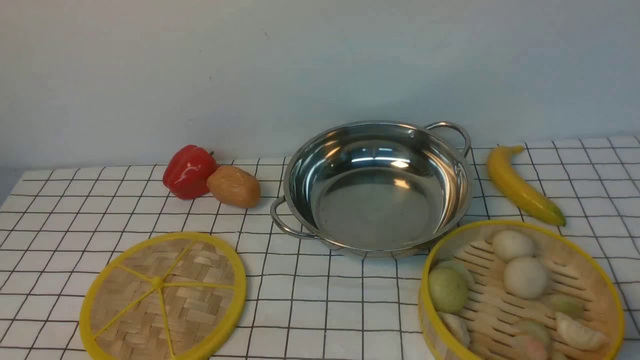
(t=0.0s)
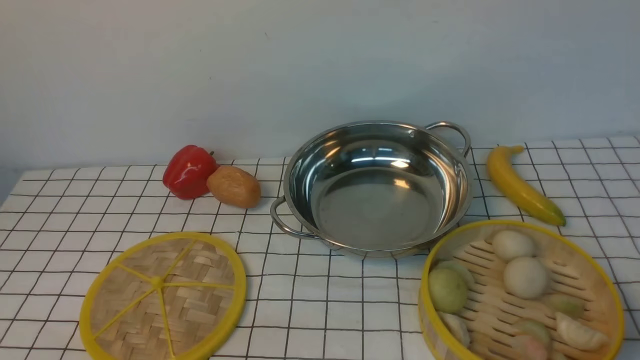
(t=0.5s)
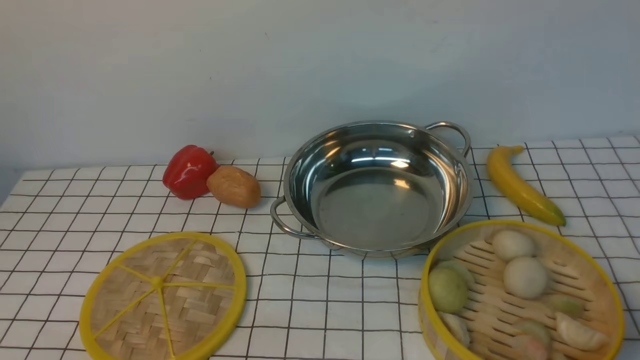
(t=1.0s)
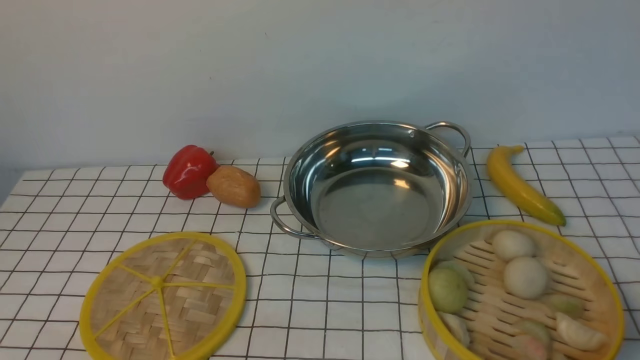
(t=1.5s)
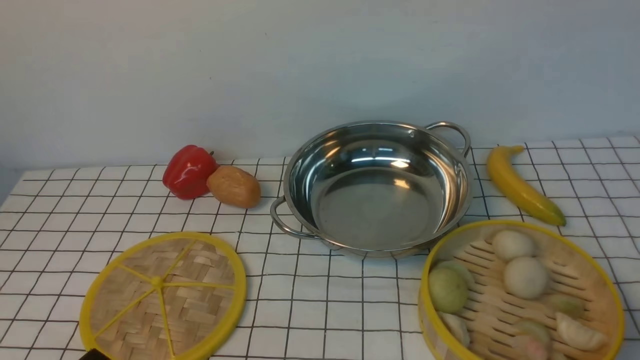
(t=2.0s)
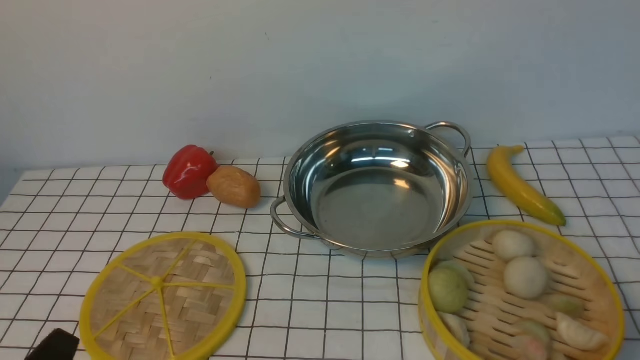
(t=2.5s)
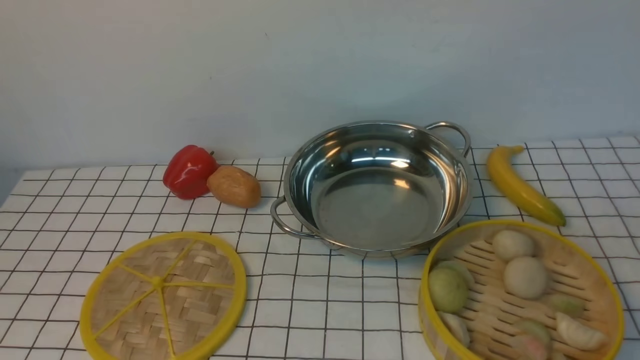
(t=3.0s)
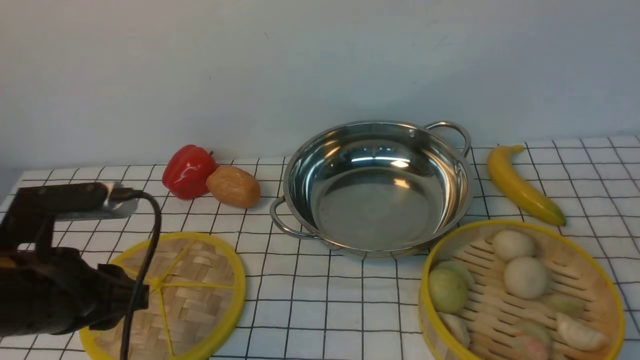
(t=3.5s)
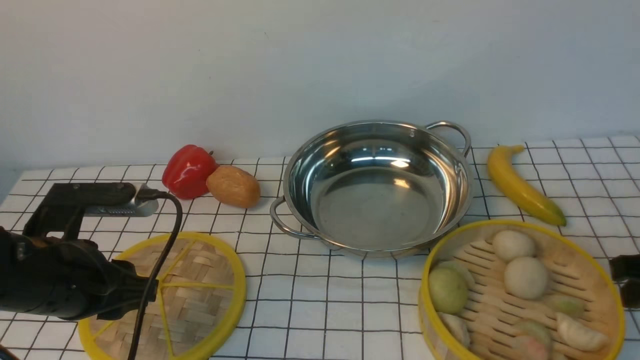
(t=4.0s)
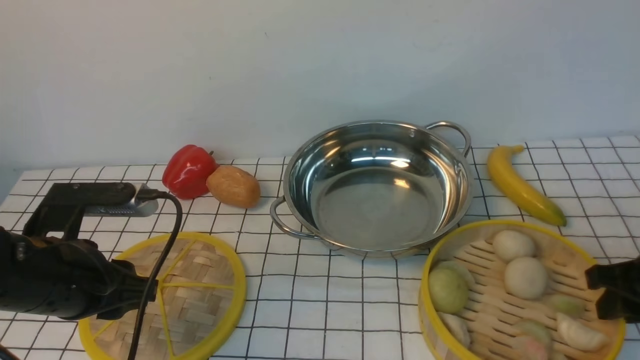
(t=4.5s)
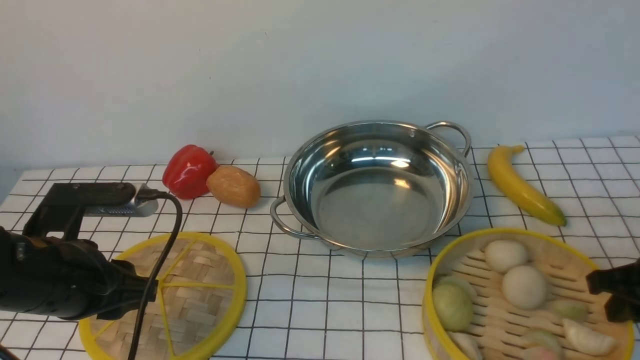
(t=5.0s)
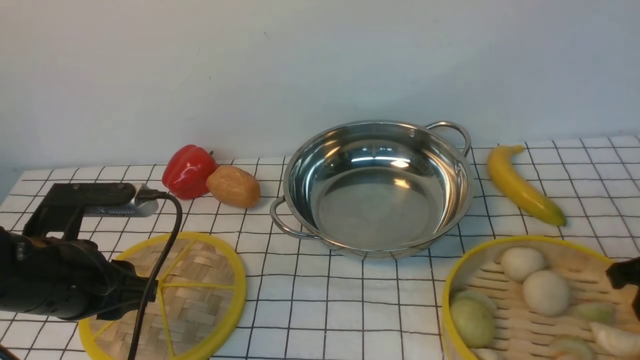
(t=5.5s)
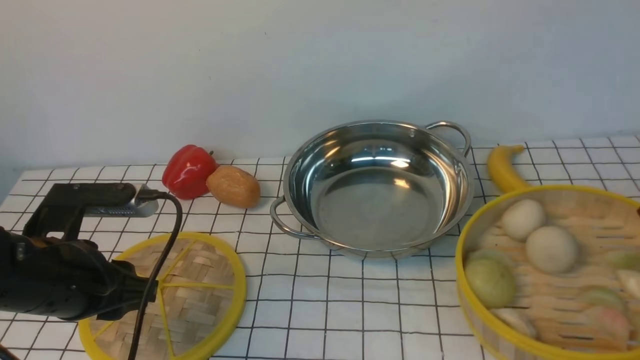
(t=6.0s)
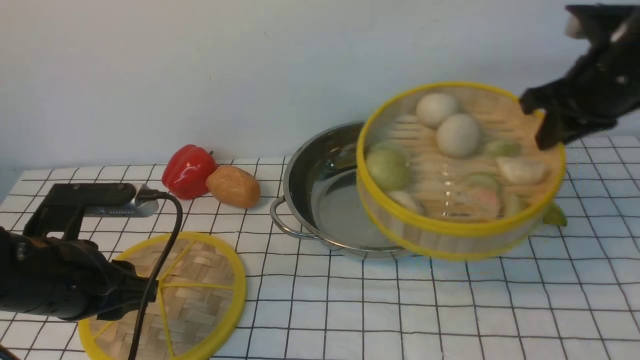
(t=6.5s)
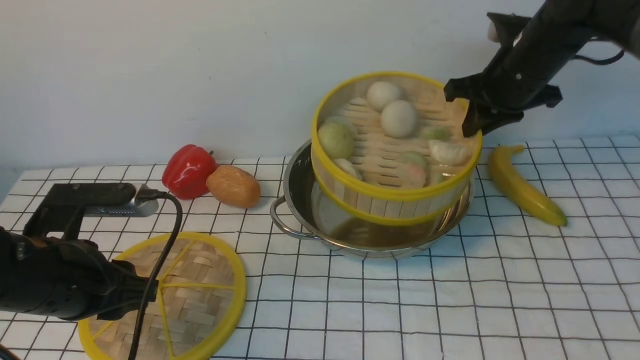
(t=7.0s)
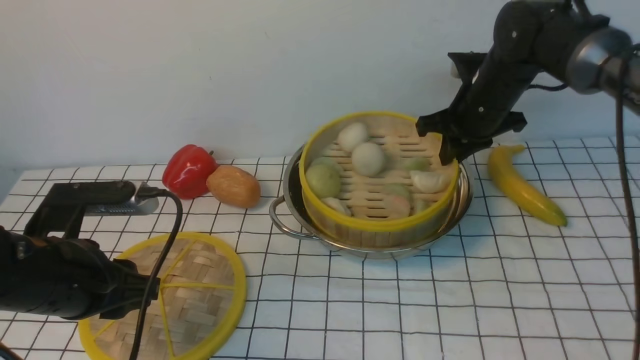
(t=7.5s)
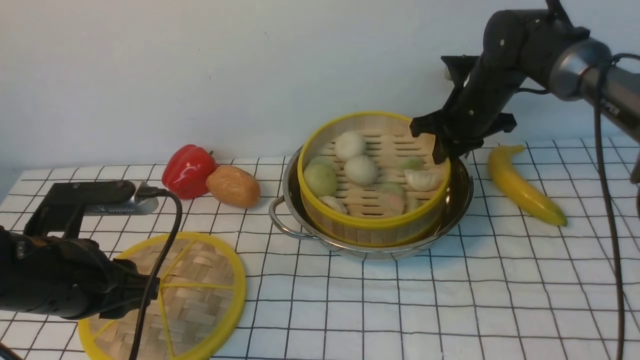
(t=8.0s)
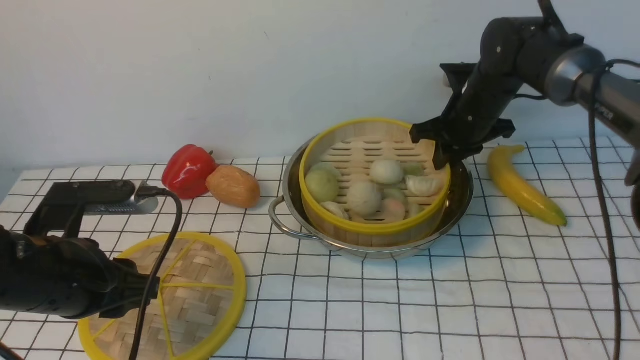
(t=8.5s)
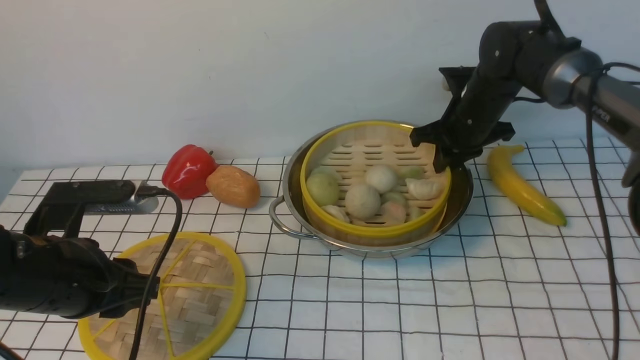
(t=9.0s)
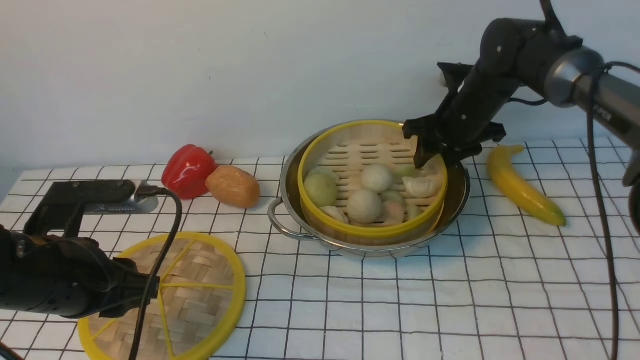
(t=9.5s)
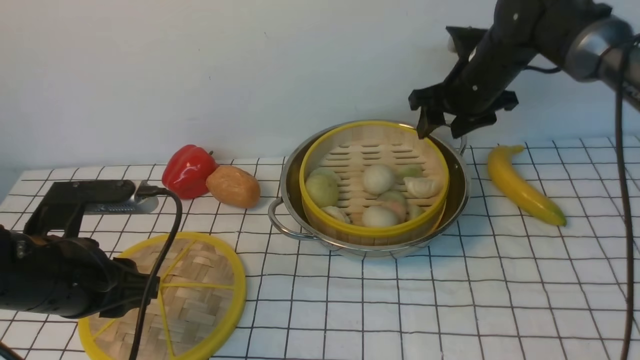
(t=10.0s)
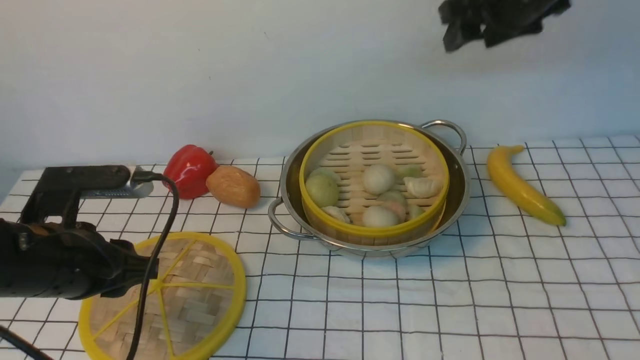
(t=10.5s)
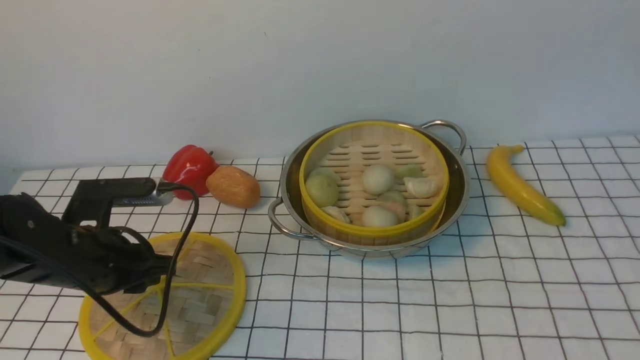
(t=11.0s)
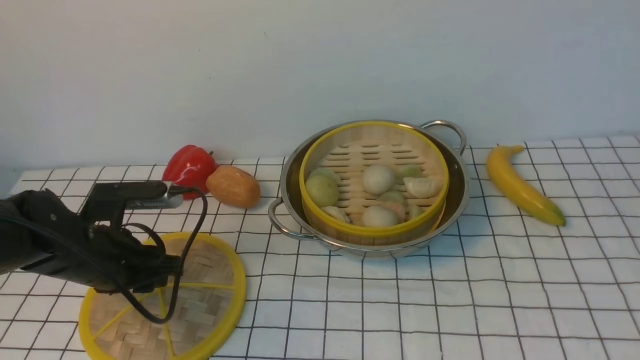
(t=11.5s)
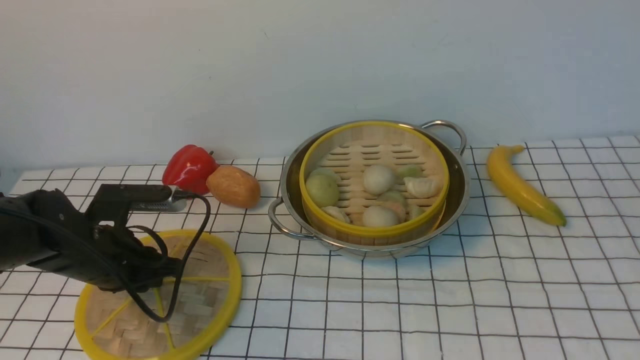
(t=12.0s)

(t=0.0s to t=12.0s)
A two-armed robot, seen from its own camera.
Task of the whole recording: place the steamer in the pot on the white tablecloth, and put the lid on the steamer.
Step, t=0.0s - t=5.5s: use the right arm to lift the steamer closest to it.
Step, t=6.0s - t=10.0s: use the right arm to put the steamer into the iron steamer pot in the middle.
t=2.0s - t=4.0s: Both grippers travel together forward, some 15 cm.
t=4.0s - t=6.0s: The right gripper goes some 5 cm upward.
t=6.0s - t=8.0s: The right gripper shifts approximately 25 cm forward and to the left.
t=8.0s - t=10.0s: The right gripper opens.
t=10.0s - t=12.0s: The right gripper shifts roughly 50 cm backward and upward, and closes its fingers, while the left gripper goes approximately 10 cm forward and downward.

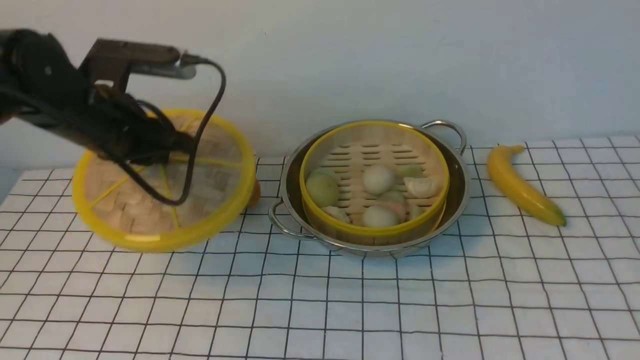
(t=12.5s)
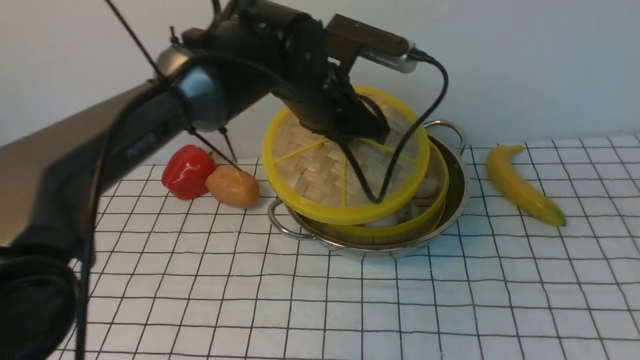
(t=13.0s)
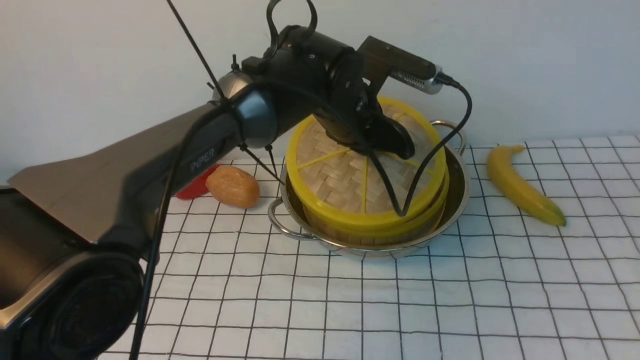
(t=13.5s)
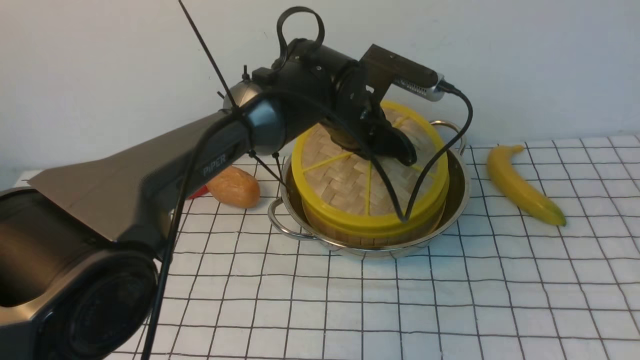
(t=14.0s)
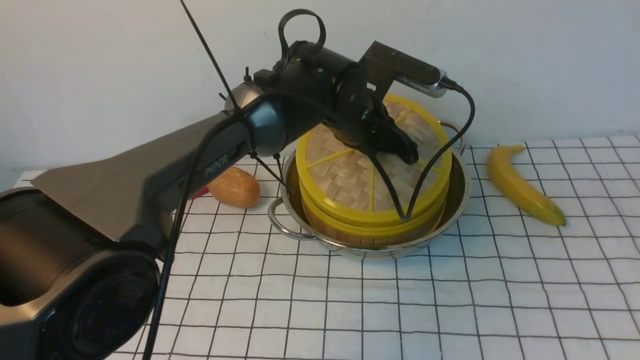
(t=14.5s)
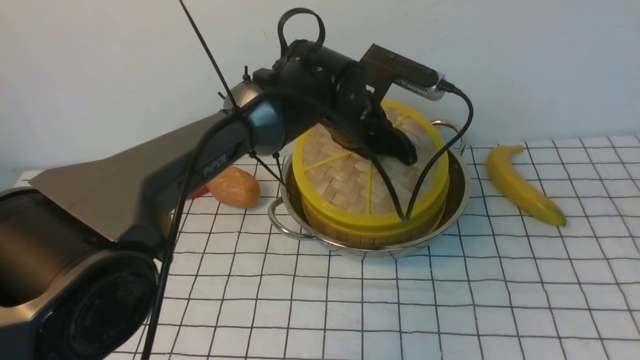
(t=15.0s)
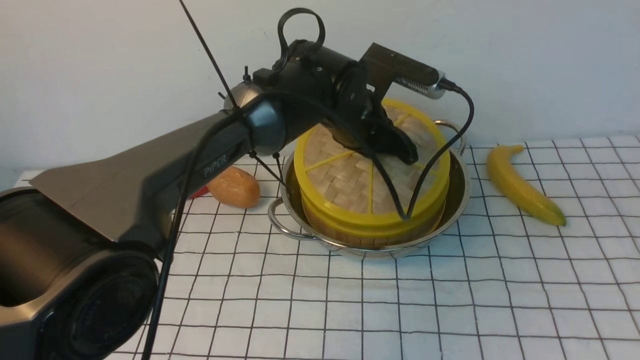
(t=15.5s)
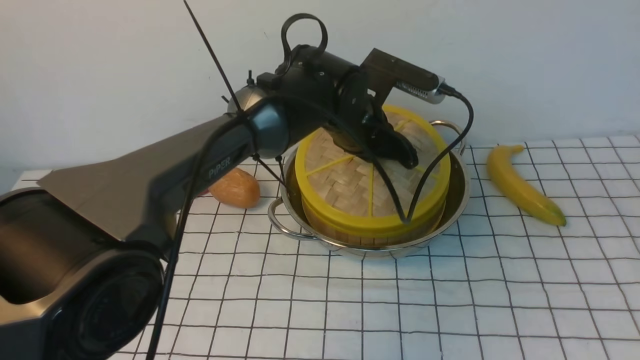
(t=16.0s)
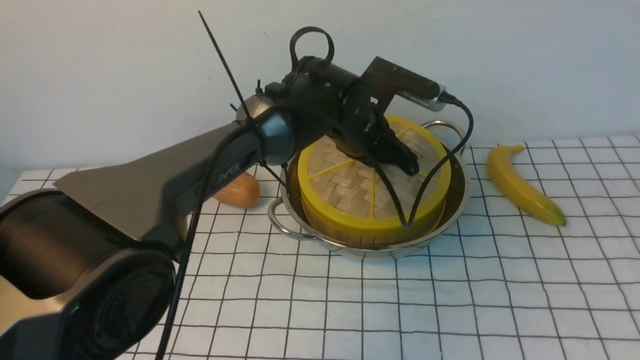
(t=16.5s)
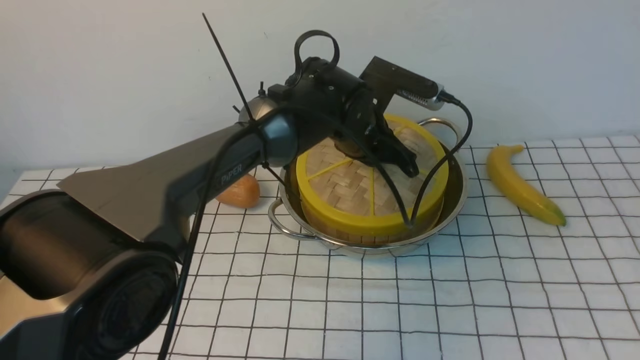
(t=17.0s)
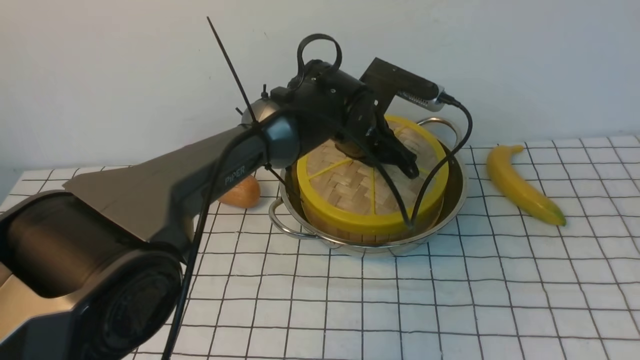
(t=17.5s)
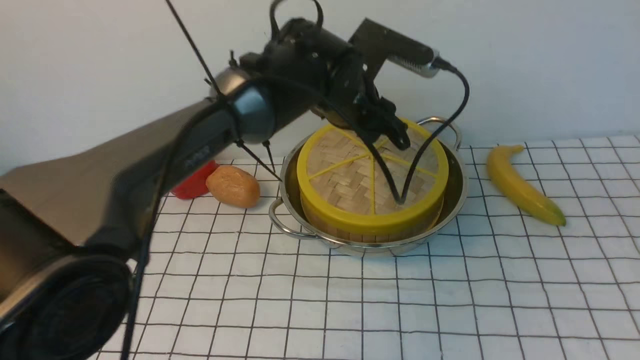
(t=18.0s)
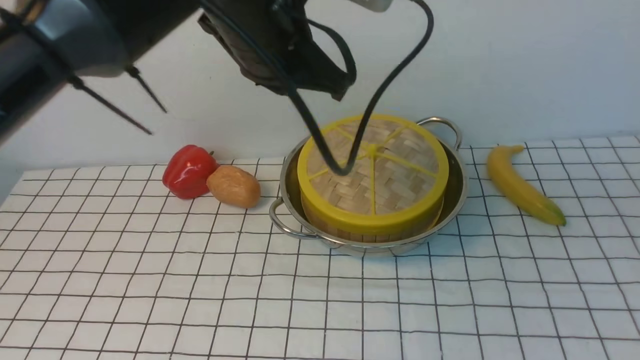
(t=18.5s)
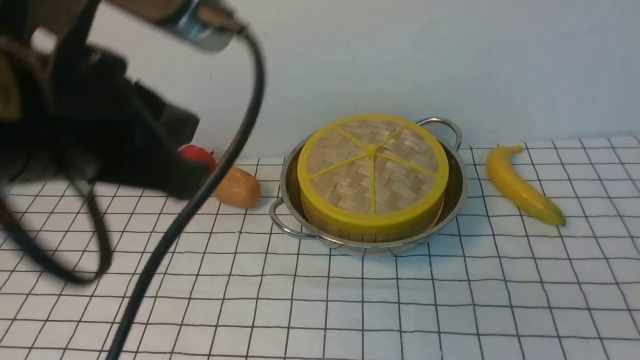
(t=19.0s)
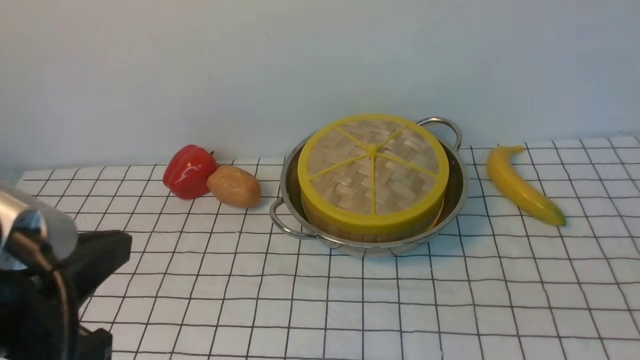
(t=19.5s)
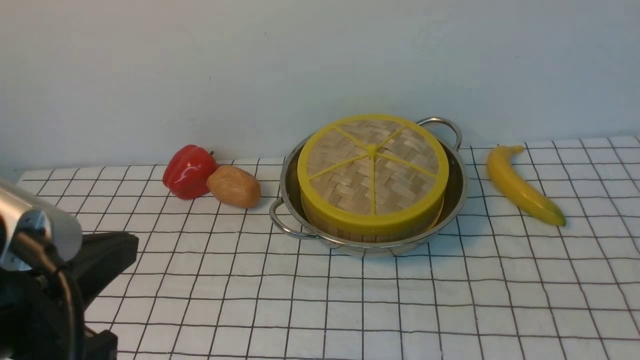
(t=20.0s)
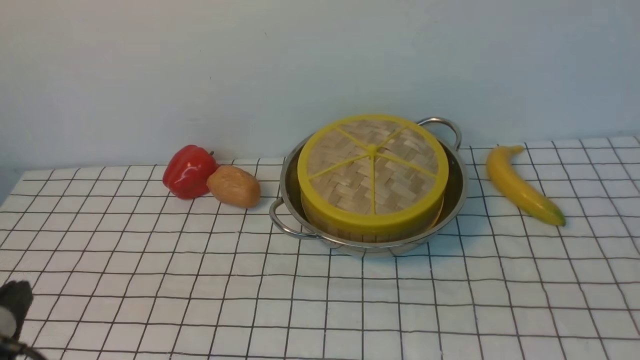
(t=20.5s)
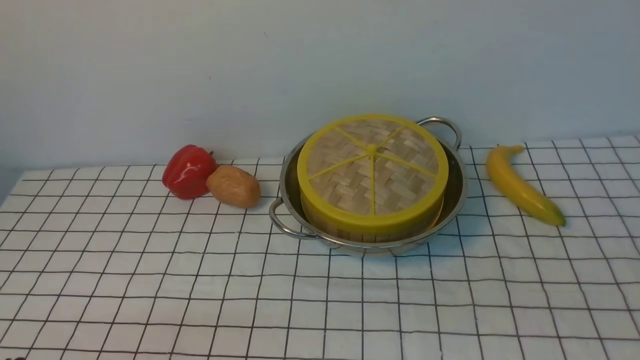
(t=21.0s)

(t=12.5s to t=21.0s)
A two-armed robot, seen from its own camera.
Task of the whole recording: place the steamer in the pot on the white tablecloth, and put the lid on the steamer.
Step, t=12.5s - t=18.0s: use the left arm to place the steamer lid on the steamer.
t=12.5s - t=14.5s: The left gripper moves to the right, about 20 cm.
t=14.5s - t=16.5s: The grippers make only small movements.
t=16.5s - t=19.0s: The left gripper moves backward, upward and to the left, some 35 cm, and closes up; the right gripper travels downward by roughly 10 cm.
t=19.0s - t=21.0s: The left gripper heads downward, backward and to the left, covering about 30 cm.
